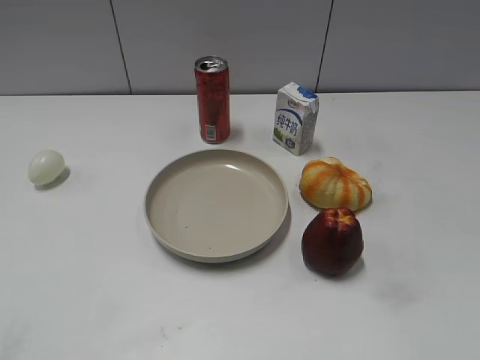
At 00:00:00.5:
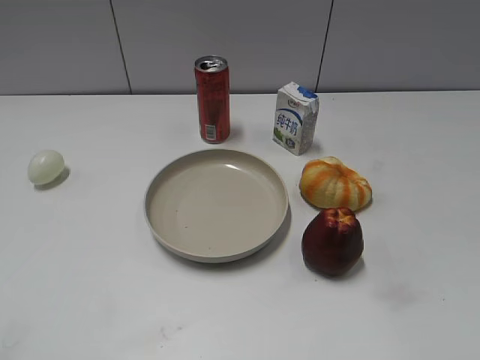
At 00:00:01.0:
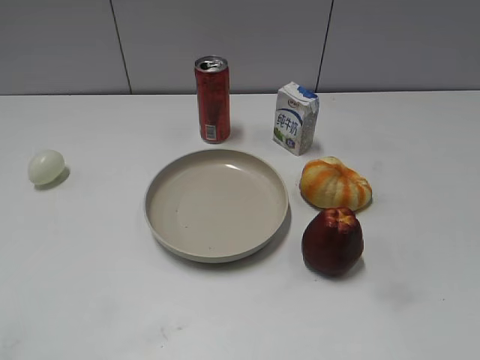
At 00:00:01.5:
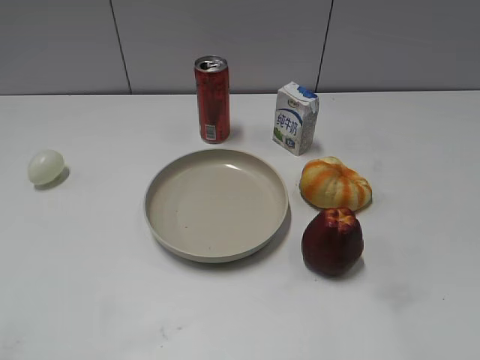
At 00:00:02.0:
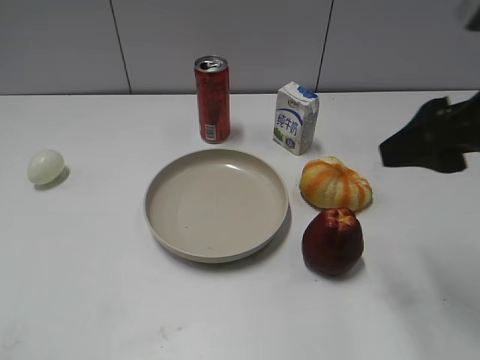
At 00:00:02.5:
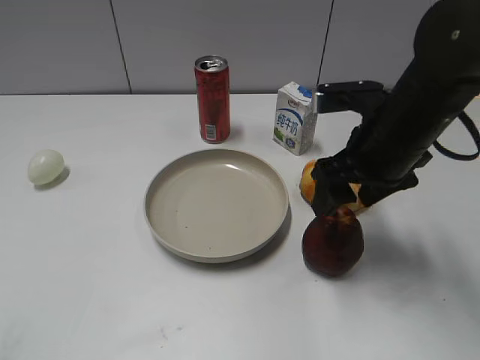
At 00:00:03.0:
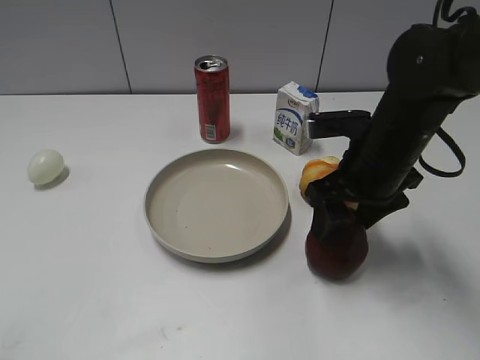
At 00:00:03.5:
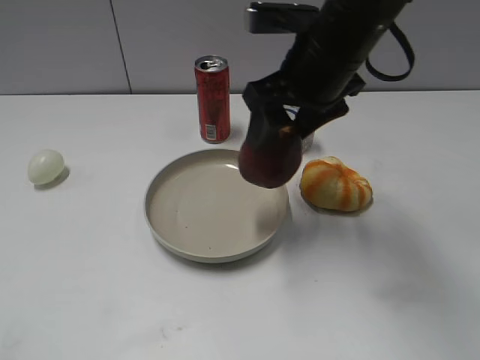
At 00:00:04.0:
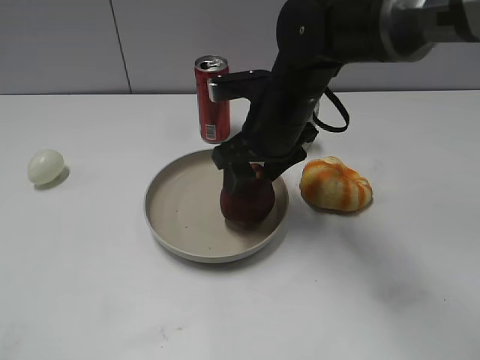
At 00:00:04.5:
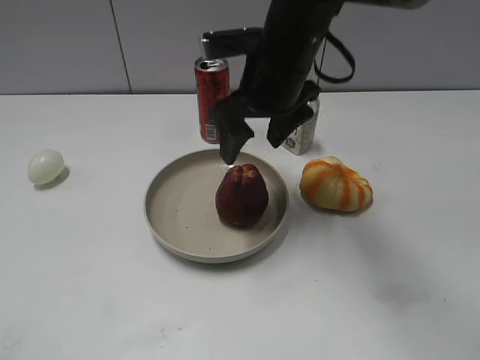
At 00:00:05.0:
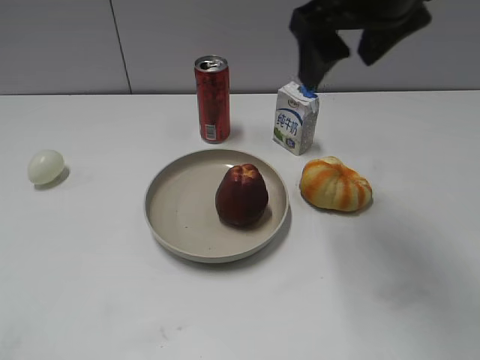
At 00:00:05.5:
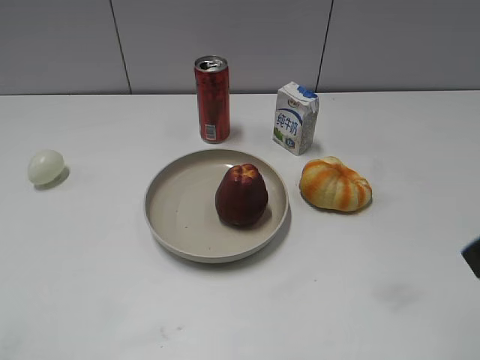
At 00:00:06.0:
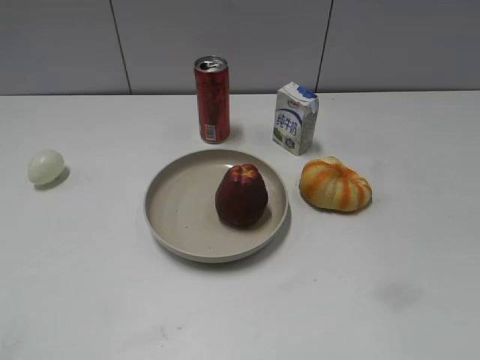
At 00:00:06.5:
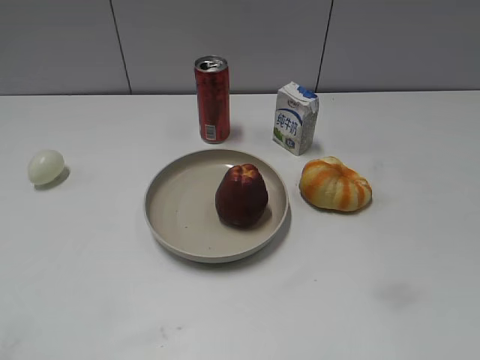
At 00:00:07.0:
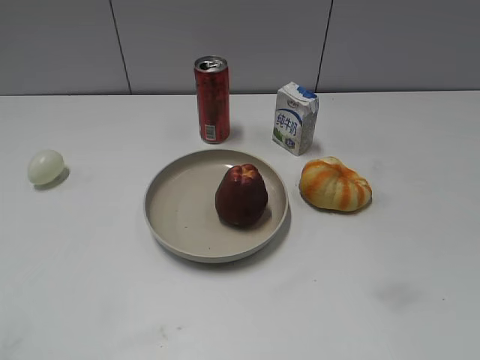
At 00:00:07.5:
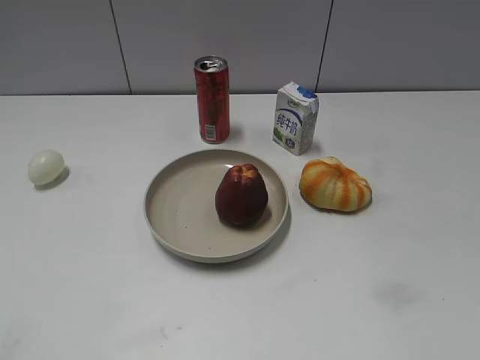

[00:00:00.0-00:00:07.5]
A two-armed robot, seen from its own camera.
Step, 00:00:01.0 to 00:00:02.5: Grasp the apple with right gripper.
Step, 00:00:03.0 to 00:00:04.5: Place the apple on the plate with right gripper.
00:00:02.0 to 00:00:04.0: The right gripper travels to the left, forward and downward by about 30 cm, and closes its fingers.
00:00:04.0 to 00:00:05.5: The right gripper is displaced backward, to the right and upward by roughly 25 cm, and opens up.
